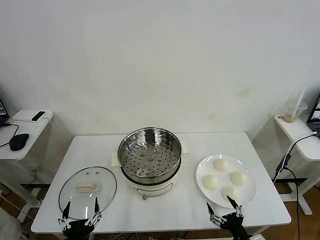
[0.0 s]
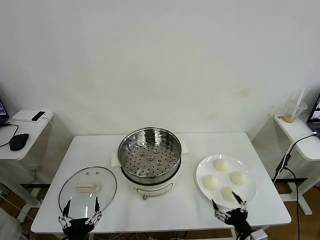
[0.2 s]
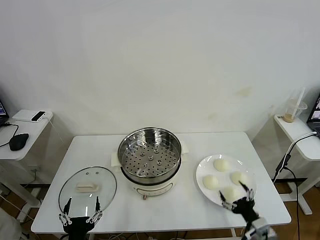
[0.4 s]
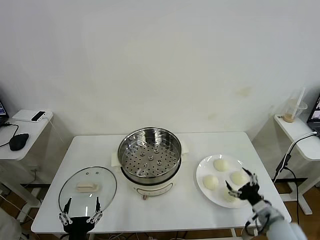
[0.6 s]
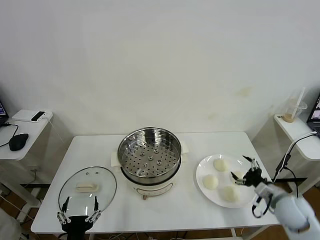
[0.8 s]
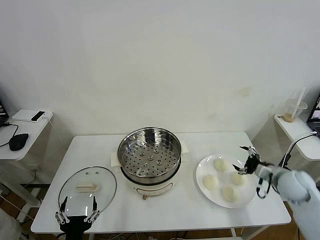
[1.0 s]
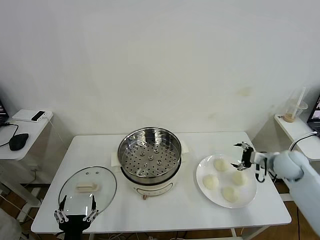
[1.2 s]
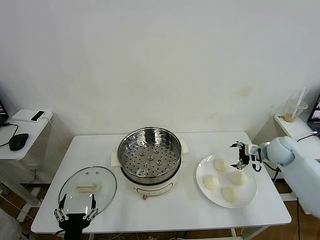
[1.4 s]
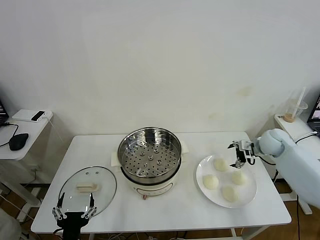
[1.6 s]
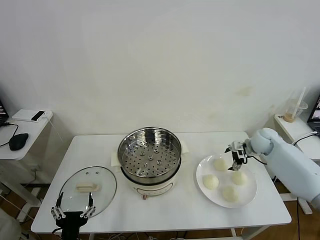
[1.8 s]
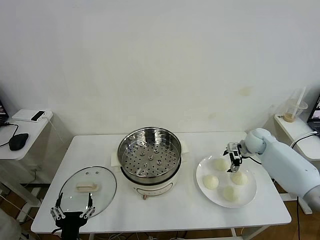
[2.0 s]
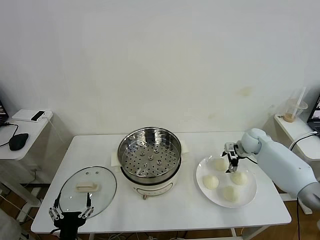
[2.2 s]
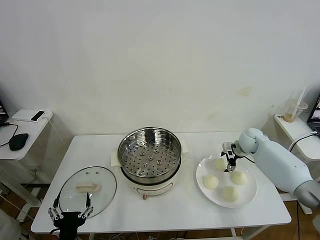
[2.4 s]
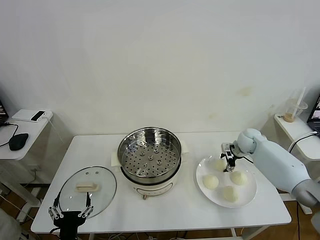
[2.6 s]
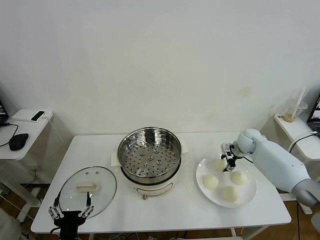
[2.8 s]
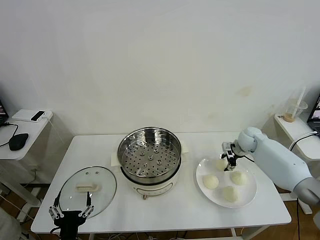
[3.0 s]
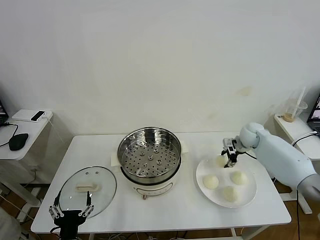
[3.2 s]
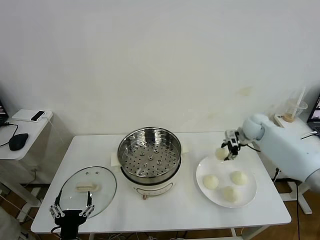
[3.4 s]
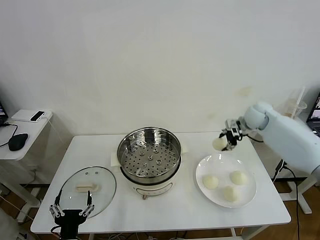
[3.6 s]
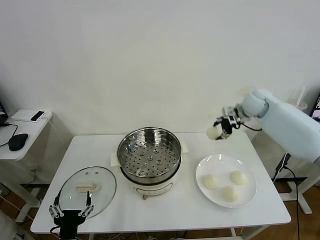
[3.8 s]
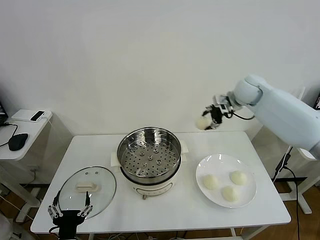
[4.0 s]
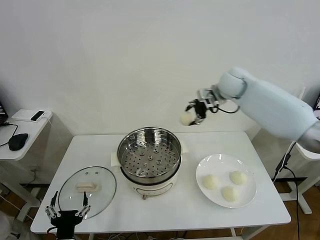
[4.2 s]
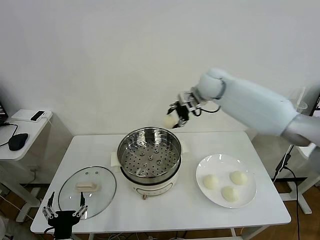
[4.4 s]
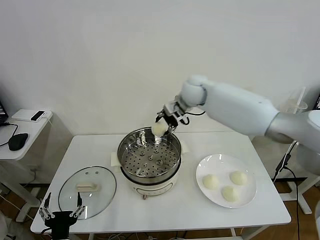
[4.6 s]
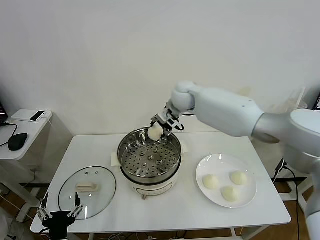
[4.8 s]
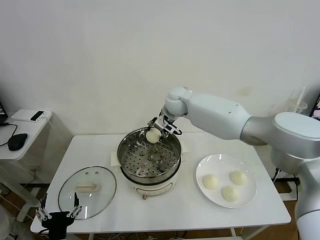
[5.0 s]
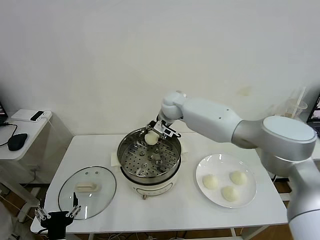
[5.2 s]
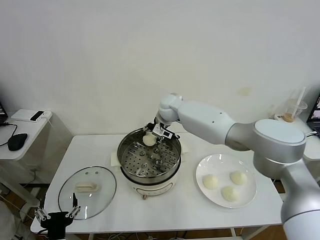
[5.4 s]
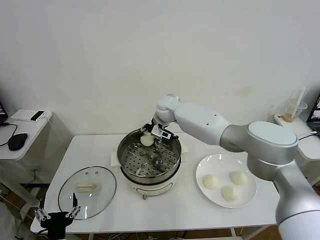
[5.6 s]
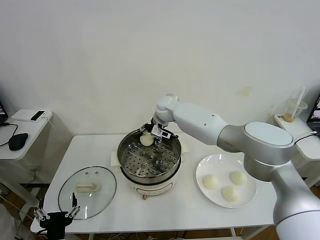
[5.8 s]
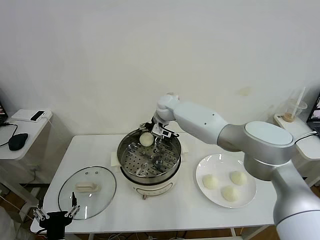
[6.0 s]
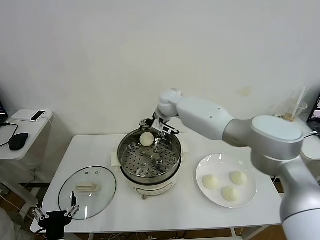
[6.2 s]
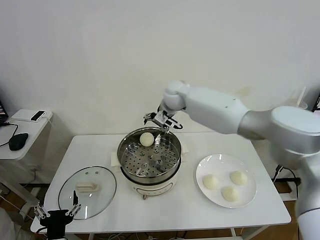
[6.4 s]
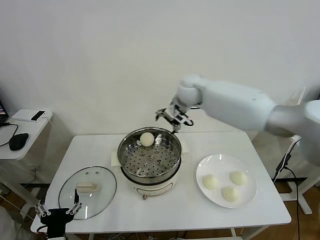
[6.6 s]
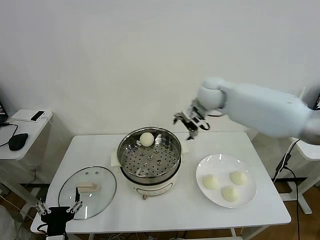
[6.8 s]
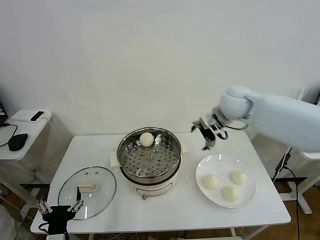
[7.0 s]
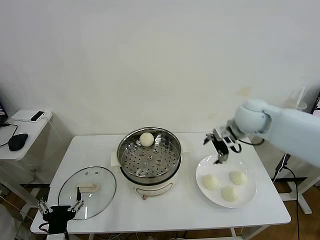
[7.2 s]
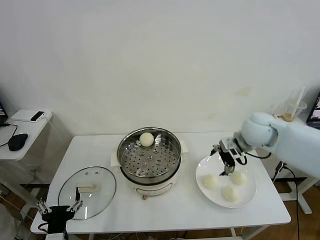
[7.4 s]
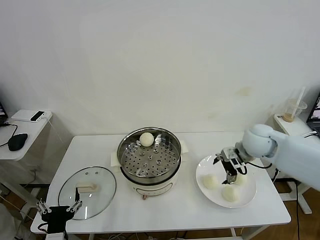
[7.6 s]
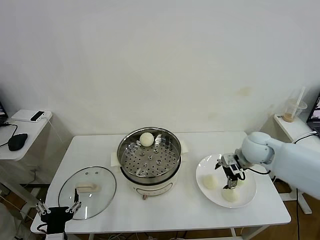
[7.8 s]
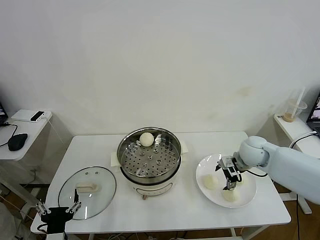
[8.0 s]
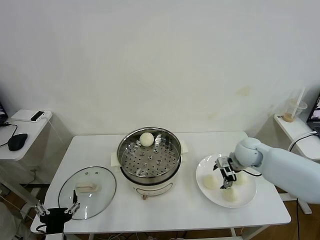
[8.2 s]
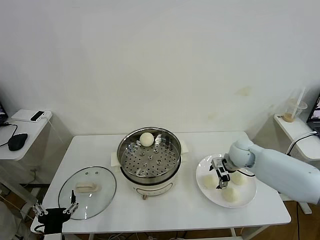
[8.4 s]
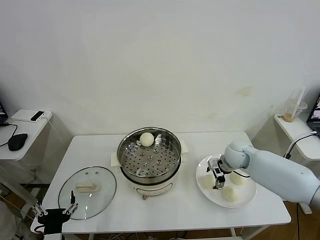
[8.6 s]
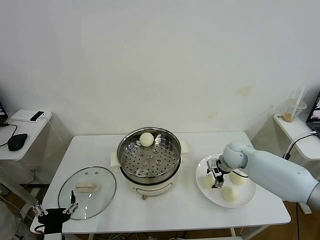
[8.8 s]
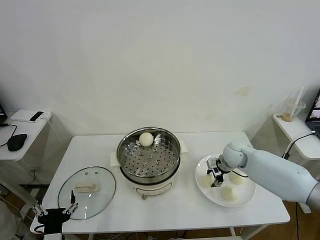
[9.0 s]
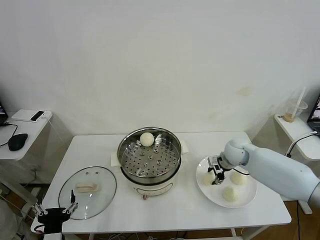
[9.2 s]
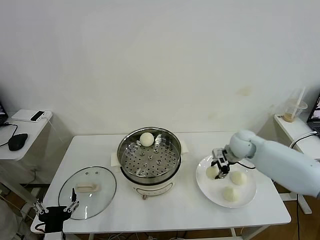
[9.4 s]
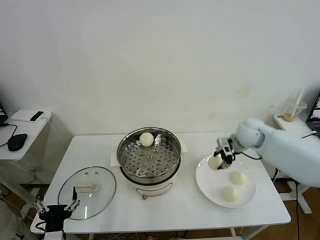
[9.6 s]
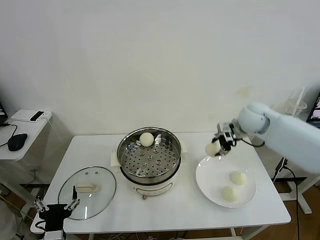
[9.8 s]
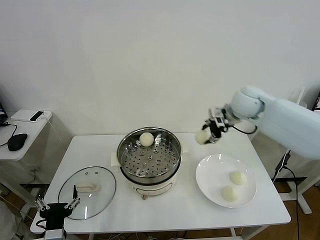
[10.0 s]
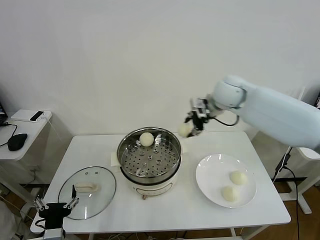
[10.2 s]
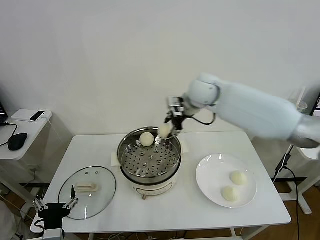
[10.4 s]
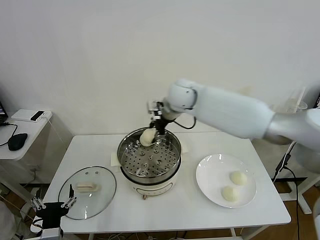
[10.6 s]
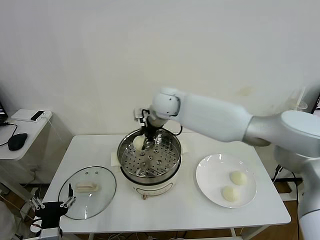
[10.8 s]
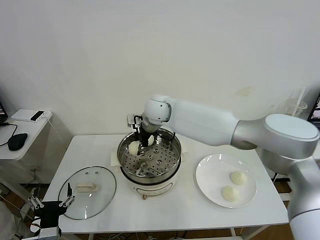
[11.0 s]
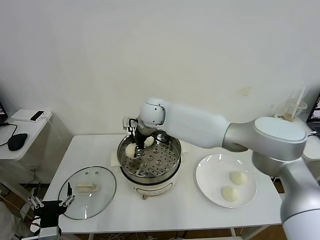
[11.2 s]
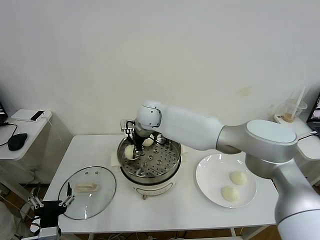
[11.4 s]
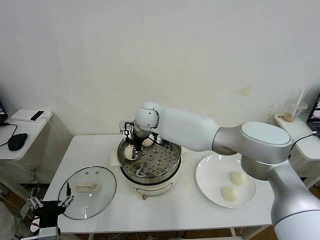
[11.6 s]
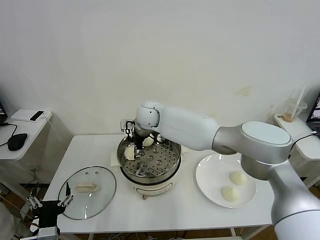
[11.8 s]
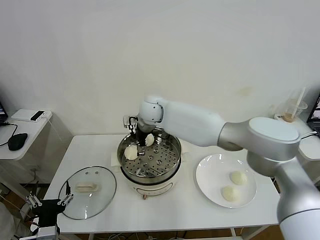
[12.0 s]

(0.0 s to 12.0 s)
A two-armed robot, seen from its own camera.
Task of the whole recording: take steamed baozi put them in steamer then cover it.
Step, 0.0 s - 2.8 s: Grasp the baozi in the plate with right gripper.
Step, 3.0 s - 5.8 s: Place the baozi on the steamer with right gripper.
Step, 6.2 s - 9.0 s: Grasp the baozi in the plate with right gripper.
Step, 9.2 s - 12.0 s: Place the baozi on the steamer with right gripper.
1.6 s - 3.0 s: The right gripper is displaced forward by about 5 cm, and closes.
3.0 s - 4.4 s: The right gripper shifts roughly 30 cm upward and to the left.
4.4 s - 6.0 s: The right gripper goes roughly 15 cm to the left and downward, and opens up.
6.0 s - 7.6 s: The right gripper travels to the right and backward by approximately 30 cm.
7.6 s - 9.0 s: The right gripper shifts about 10 cm downward, and closes up.
9.0 s - 10.4 s: The right gripper shifts approximately 30 cm upward and to the left.
10.4 s - 12.0 s: The right gripper shifts some 20 cm to the left and downward, and opens up.

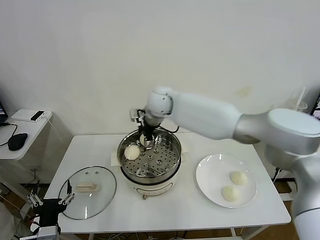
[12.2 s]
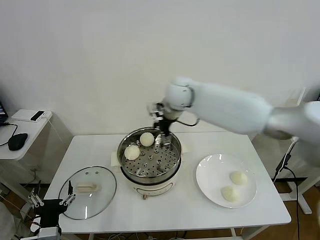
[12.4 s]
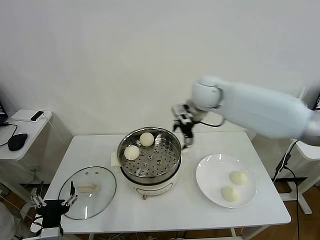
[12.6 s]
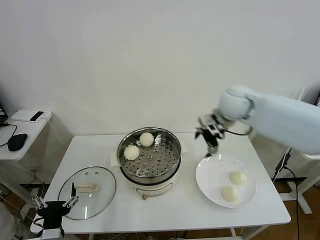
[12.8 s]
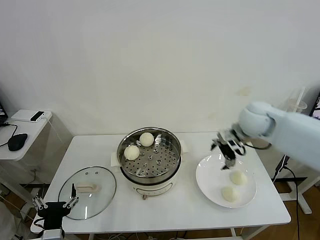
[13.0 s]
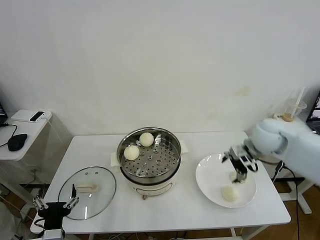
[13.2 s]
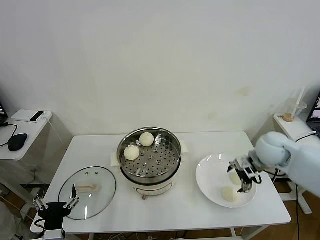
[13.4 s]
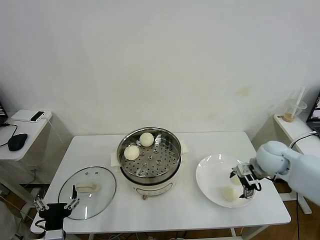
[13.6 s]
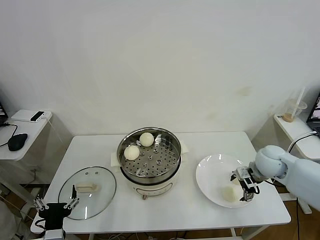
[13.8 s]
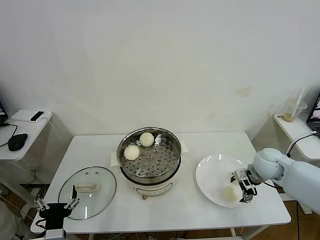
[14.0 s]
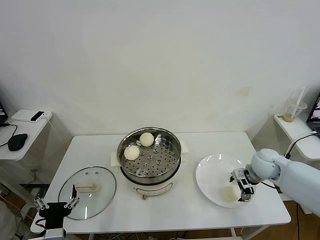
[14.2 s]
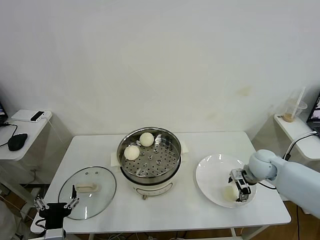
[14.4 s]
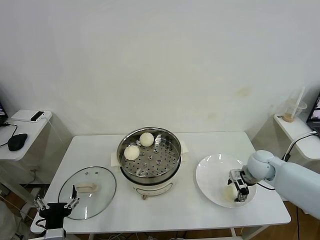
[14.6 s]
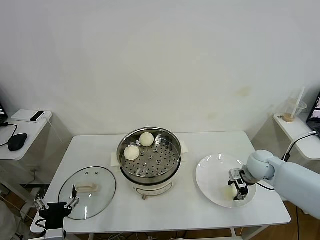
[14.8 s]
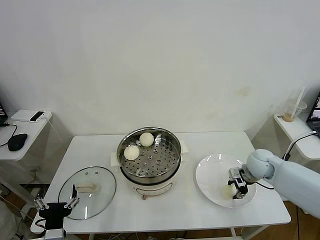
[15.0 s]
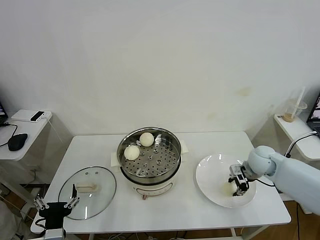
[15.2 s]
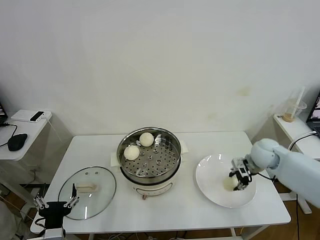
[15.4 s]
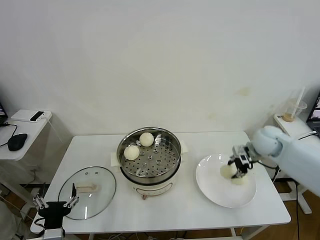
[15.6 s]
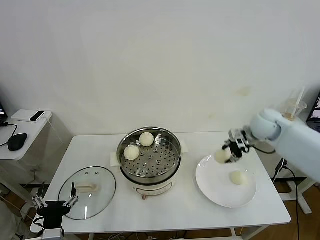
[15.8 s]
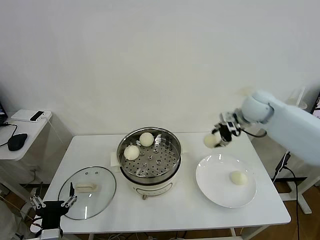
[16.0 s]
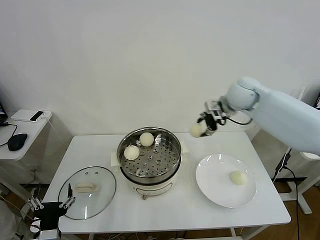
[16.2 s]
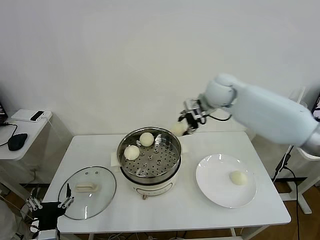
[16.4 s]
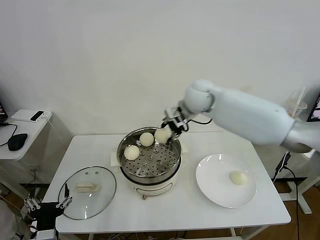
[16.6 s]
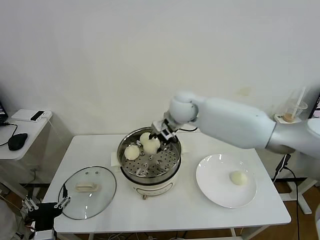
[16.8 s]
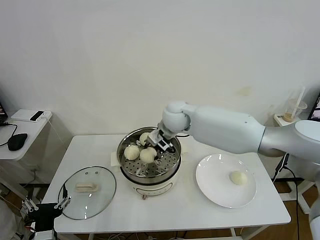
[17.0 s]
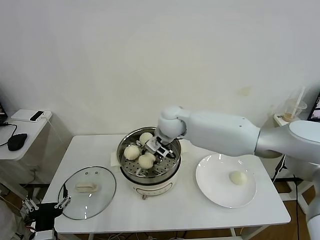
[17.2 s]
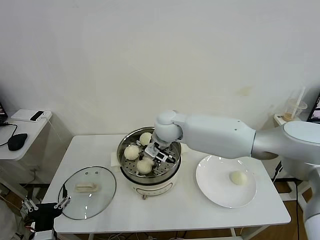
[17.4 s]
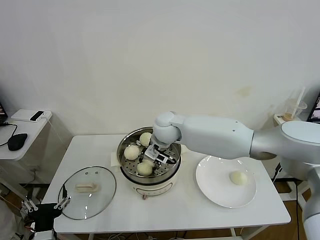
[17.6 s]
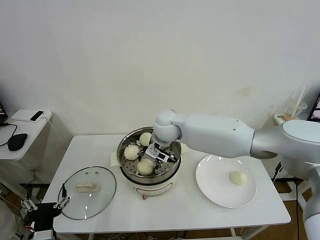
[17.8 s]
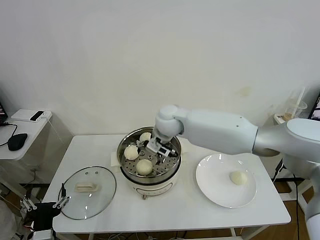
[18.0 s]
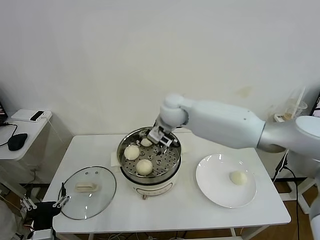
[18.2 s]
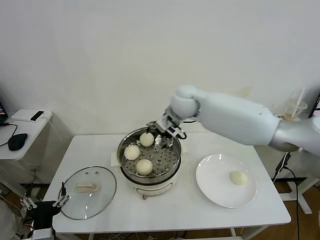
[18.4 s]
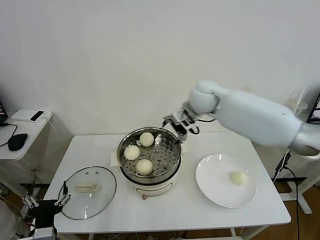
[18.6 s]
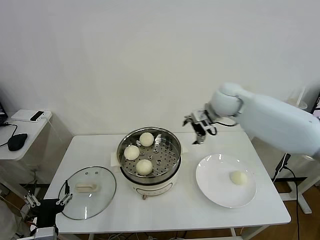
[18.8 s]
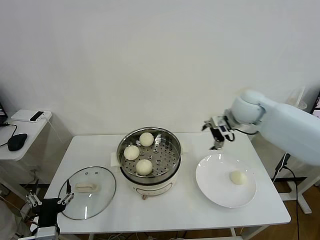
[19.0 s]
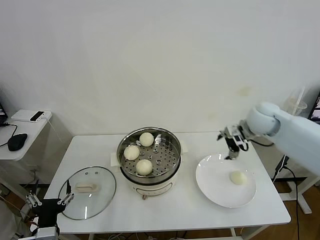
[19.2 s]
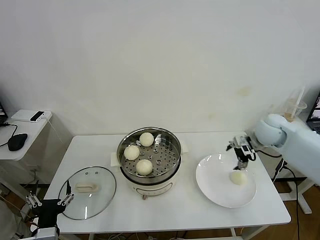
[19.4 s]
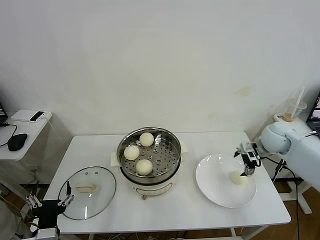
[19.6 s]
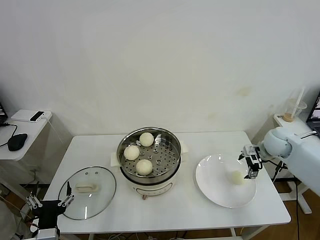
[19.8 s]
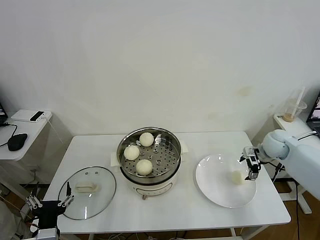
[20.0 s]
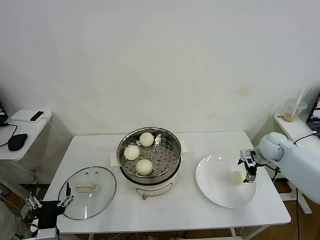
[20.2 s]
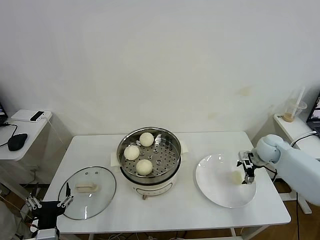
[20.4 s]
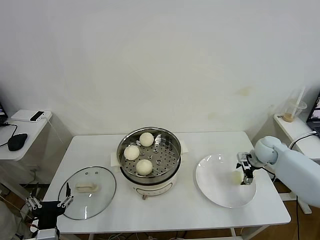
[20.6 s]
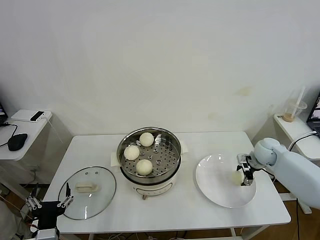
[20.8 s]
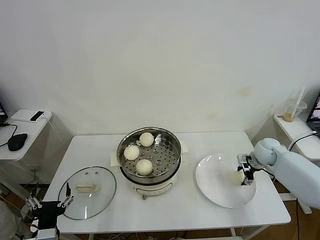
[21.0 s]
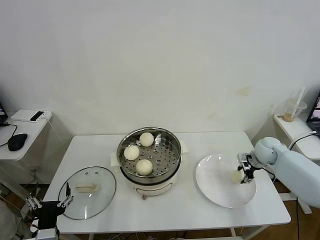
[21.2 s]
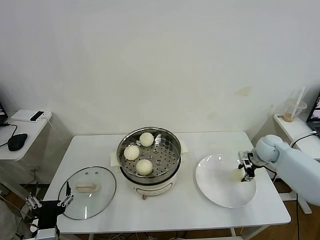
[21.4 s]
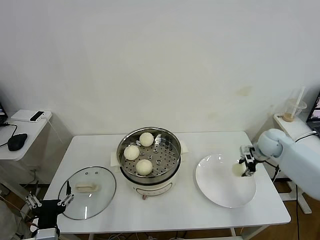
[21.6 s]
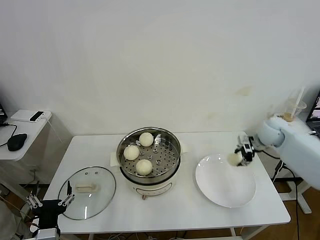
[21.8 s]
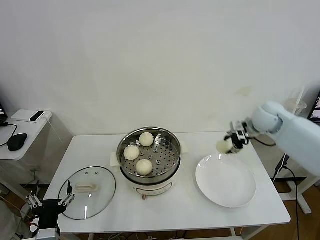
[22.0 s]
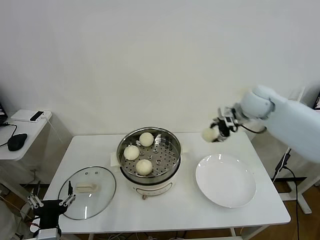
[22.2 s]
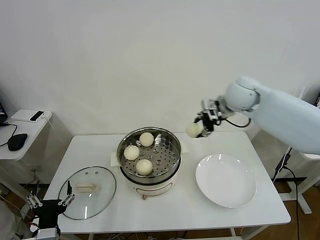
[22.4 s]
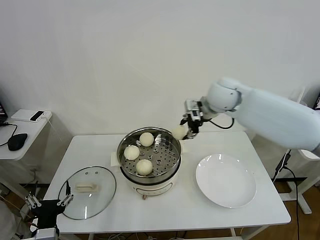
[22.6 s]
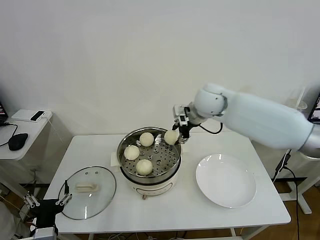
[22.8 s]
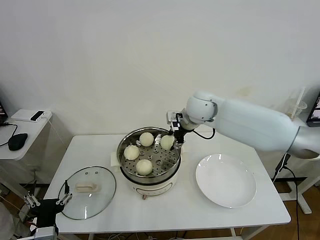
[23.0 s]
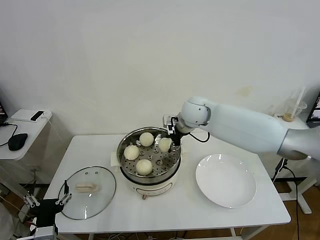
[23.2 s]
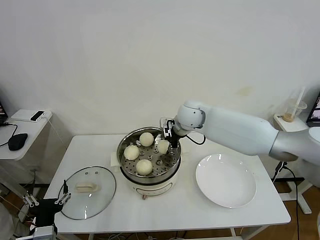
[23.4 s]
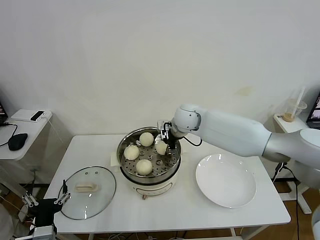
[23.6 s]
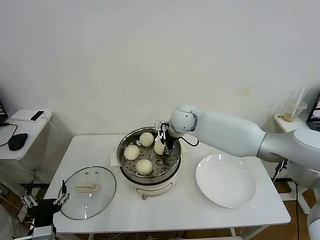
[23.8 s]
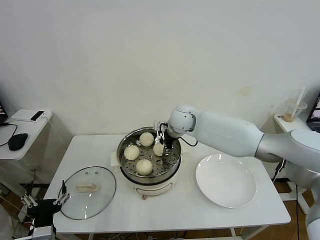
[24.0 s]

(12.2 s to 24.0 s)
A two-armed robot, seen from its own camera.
Task of the whole recording: take steamed baozi put them in steamer then cover it.
Step, 12.2 s - 14.8 s: Grasp the baozi in the plate with right gripper.
Step, 15.0 s - 17.8 s: Place the baozi on the steamer with right gripper.
Step, 18.2 s - 21.0 s: Grasp the baozi in the plate with right gripper.
12.2 s - 13.6 s: The right gripper heads to the right, covering roughly 35 cm.
13.6 s - 15.2 s: The right gripper heads downward, covering roughly 5 cm, and closes its fingers.
15.2 s - 16.6 s: The right gripper is displaced to the left, upward and forward by about 35 cm.
16.6 s - 18.2 s: The right gripper travels to the left by some 10 cm, and opens its fingers.
18.2 s - 19.6 s: The right gripper shifts some 35 cm to the right.
19.6 s - 21.0 s: The right gripper travels downward by roughly 10 cm, and closes up.
21.0 s - 22.6 s: The right gripper moves upward and to the left, roughly 30 cm.
22.6 s - 24.0 s: The right gripper moves to the left and downward, approximately 15 cm, and opens its fingers.
